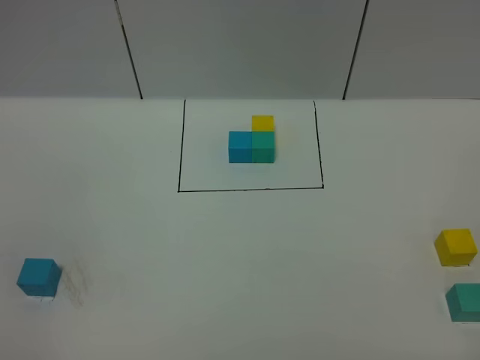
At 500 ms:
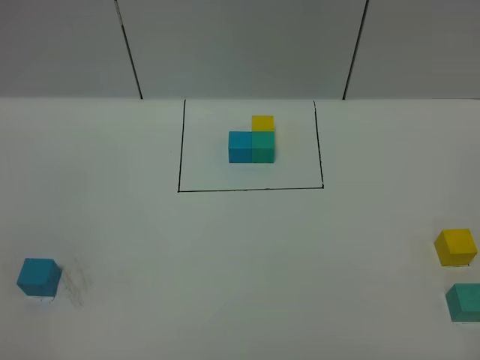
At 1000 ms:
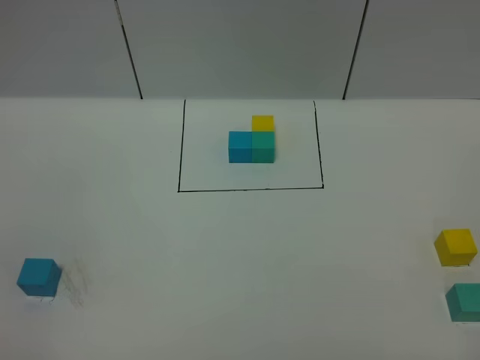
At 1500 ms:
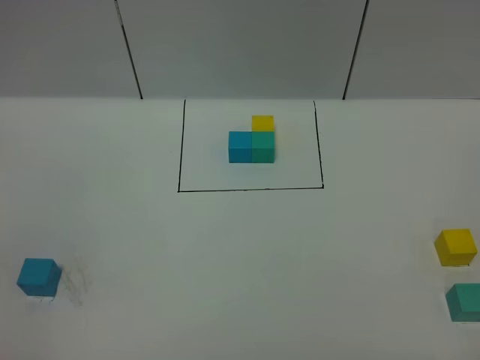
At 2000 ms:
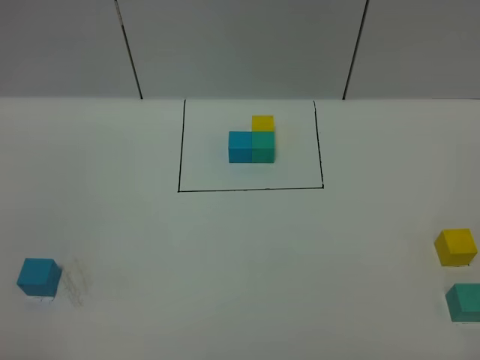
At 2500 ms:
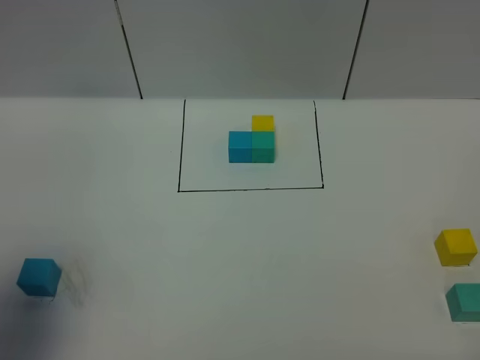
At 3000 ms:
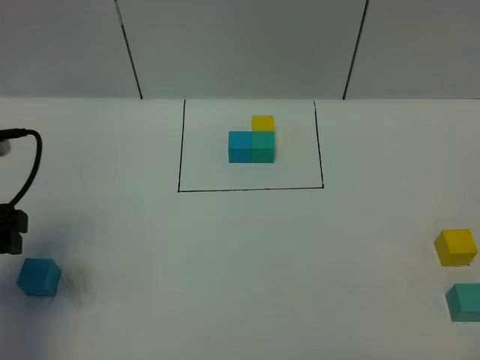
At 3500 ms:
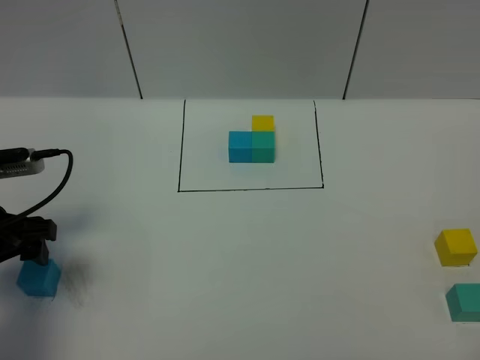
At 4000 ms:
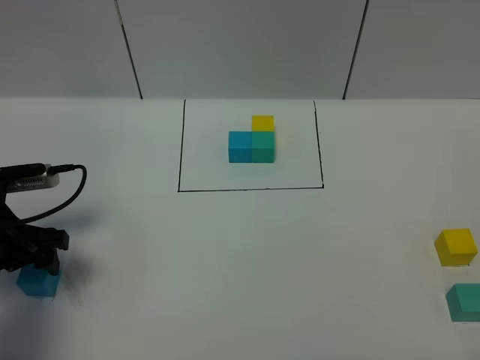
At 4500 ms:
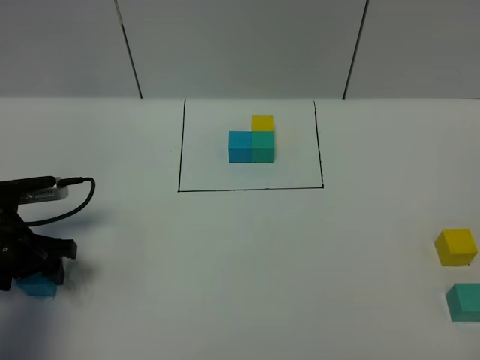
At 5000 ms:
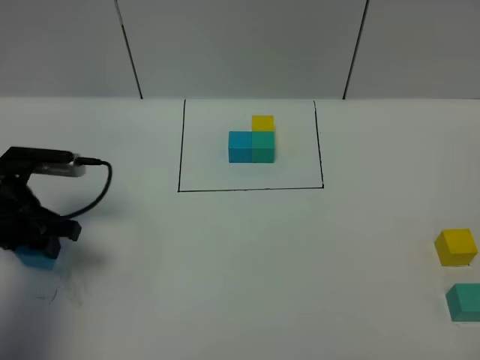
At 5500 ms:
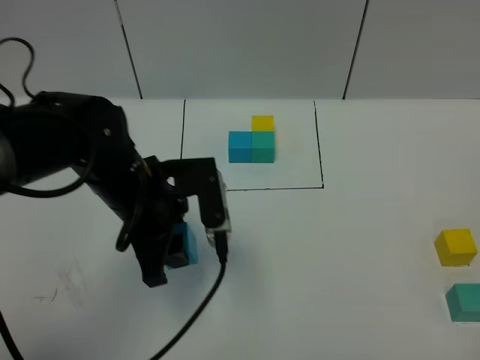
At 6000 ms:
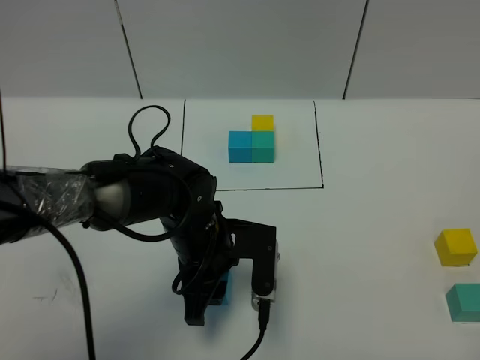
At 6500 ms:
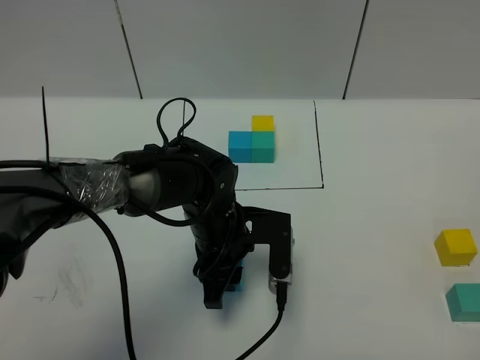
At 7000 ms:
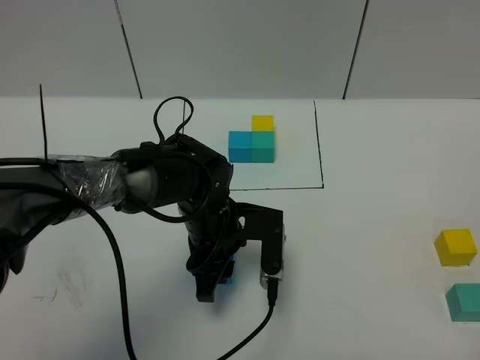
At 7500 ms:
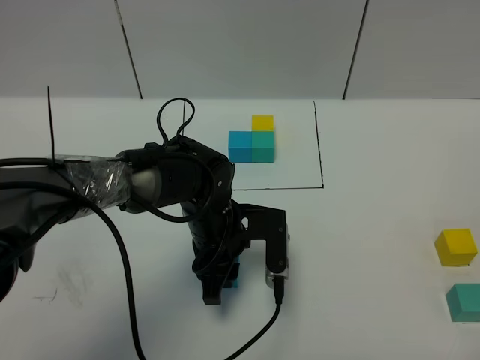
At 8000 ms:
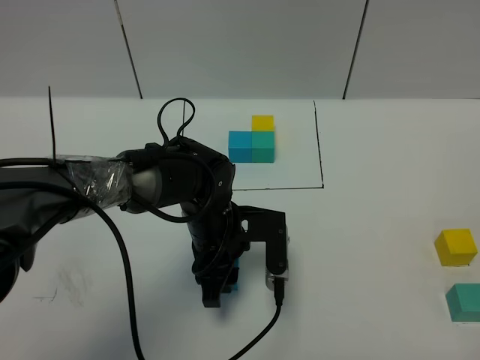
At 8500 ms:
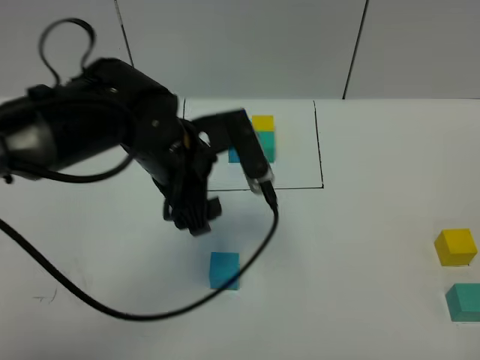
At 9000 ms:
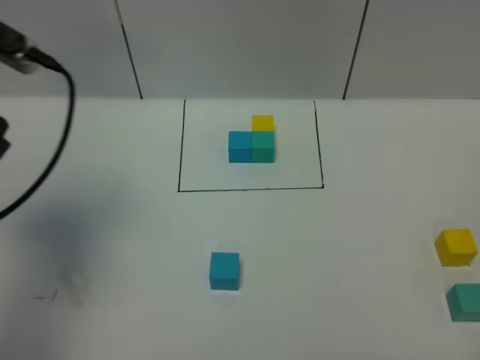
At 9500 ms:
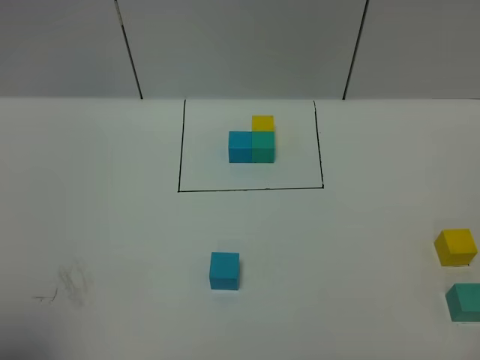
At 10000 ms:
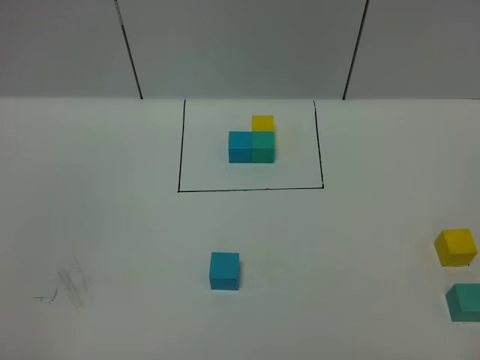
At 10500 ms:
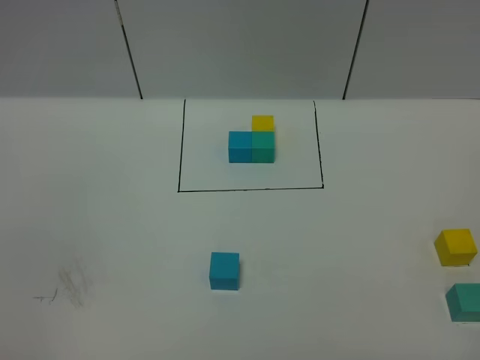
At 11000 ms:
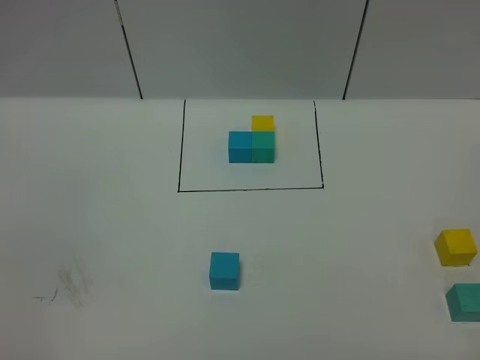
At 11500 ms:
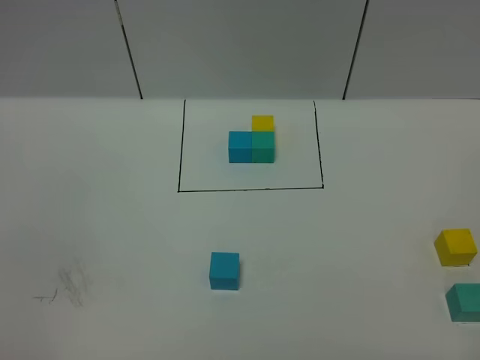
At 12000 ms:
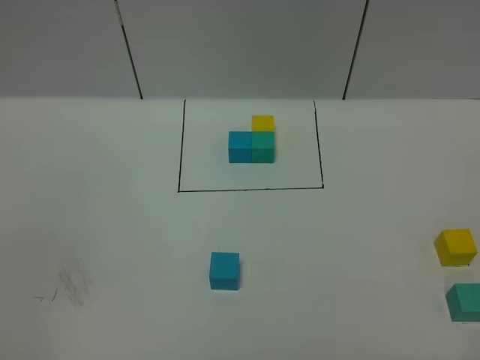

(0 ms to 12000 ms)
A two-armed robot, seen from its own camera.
Task of the whole recording: According to the building block template in front, assemble the scattered blocks together.
Step, 3000 ms - 8000 ms: Put the blue cube in the center of the table.
2000 ms - 4000 ms: The left gripper is displaced forward and downward by about 30 cm.
4000 ms - 6000 ms: The left gripper moves to the right, about 25 cm, and closes up.
6000 ms - 8000 ms: The grippers make only small movements.
8000 ms - 10000 ms: The left gripper goes approximately 50 cm backward, to the left and upward, and opens its fingers.

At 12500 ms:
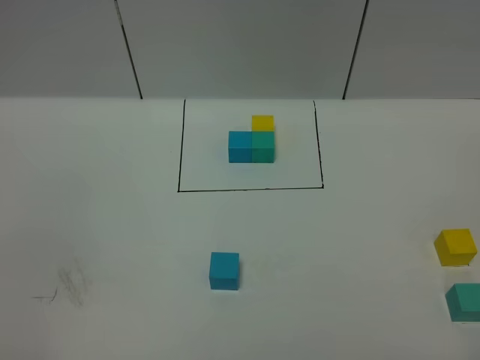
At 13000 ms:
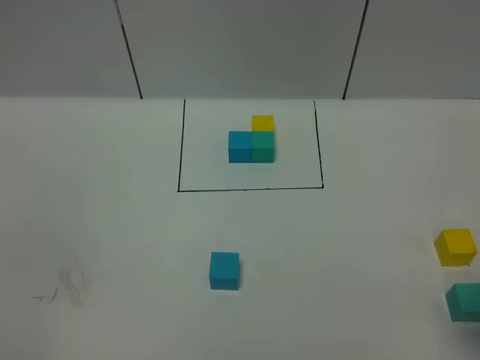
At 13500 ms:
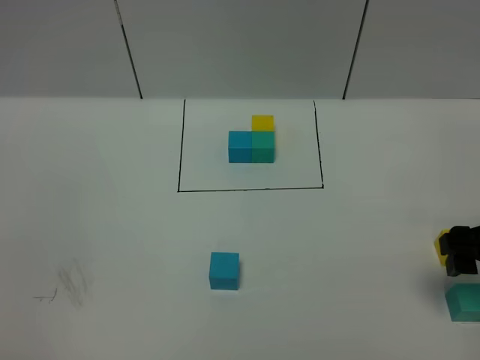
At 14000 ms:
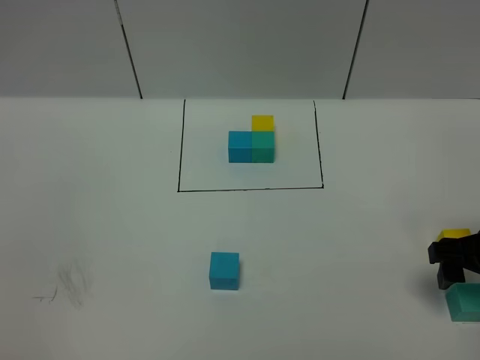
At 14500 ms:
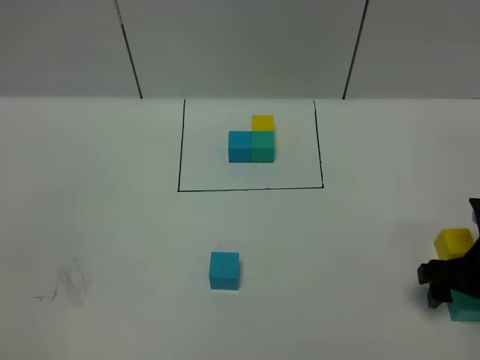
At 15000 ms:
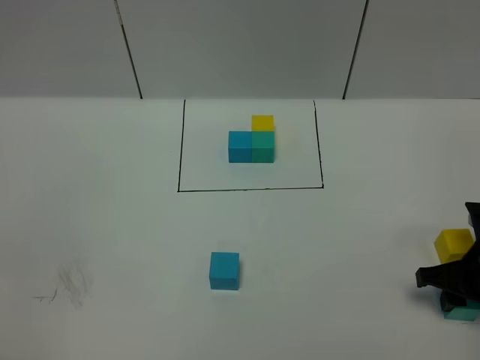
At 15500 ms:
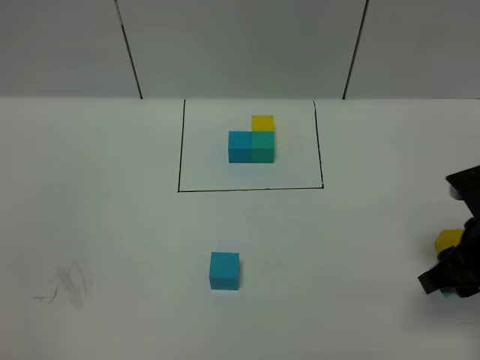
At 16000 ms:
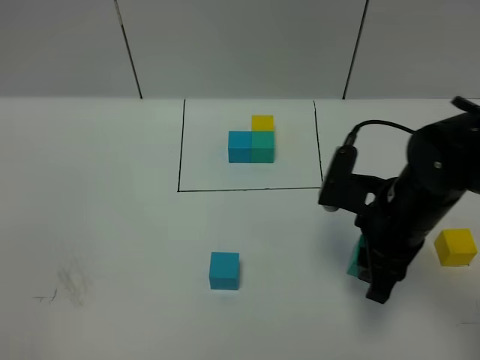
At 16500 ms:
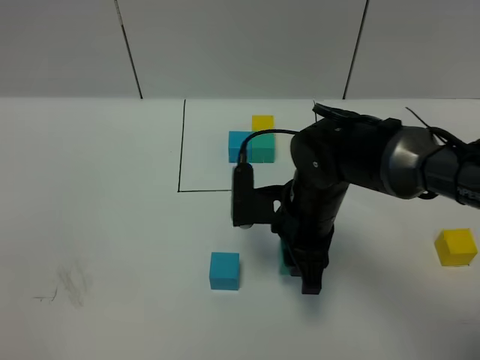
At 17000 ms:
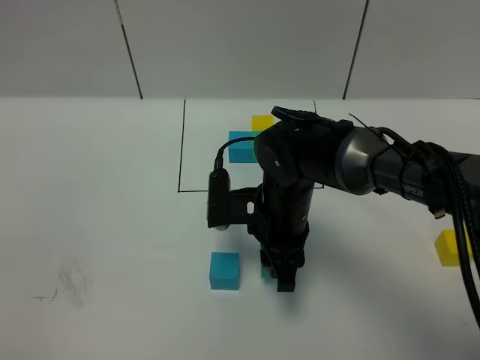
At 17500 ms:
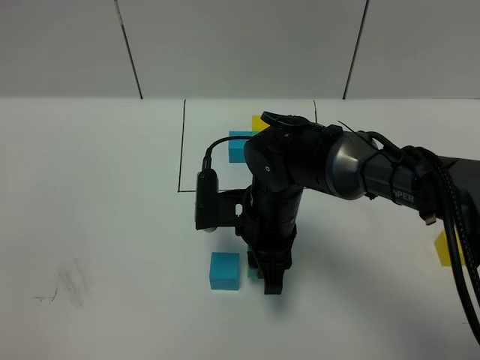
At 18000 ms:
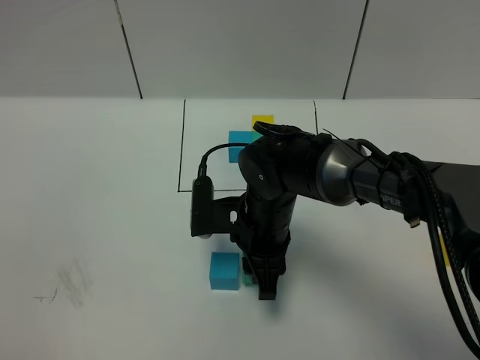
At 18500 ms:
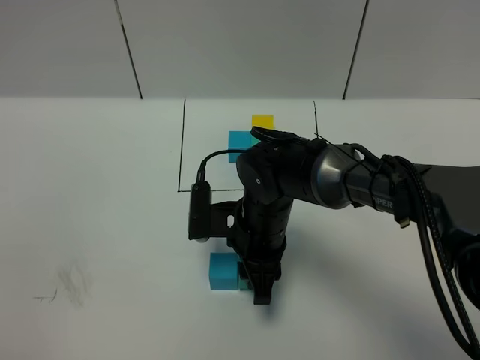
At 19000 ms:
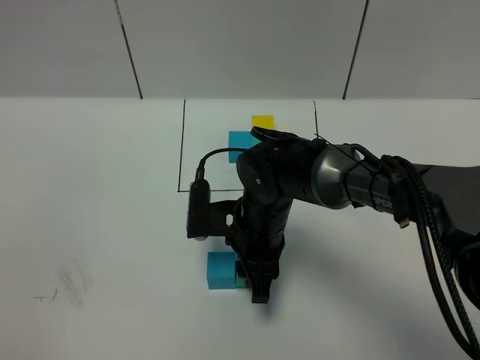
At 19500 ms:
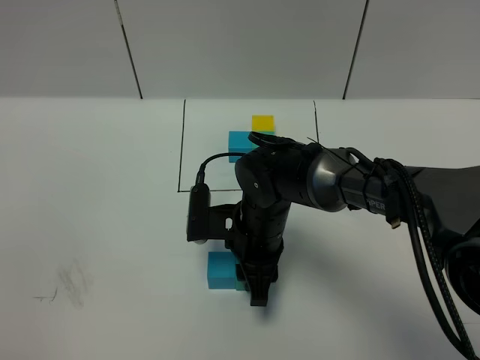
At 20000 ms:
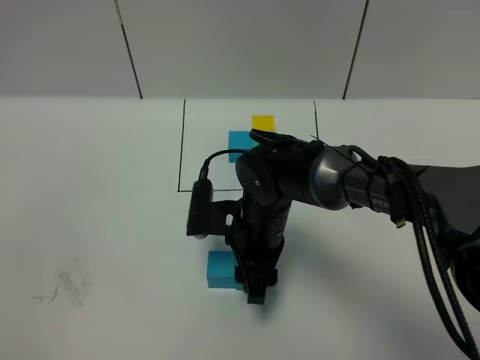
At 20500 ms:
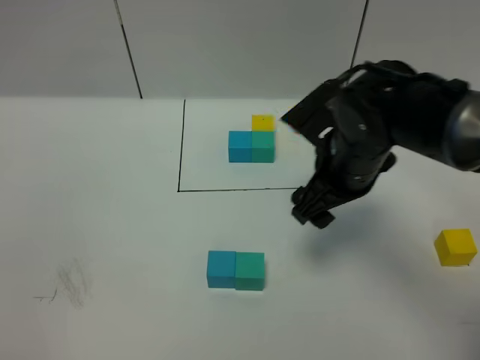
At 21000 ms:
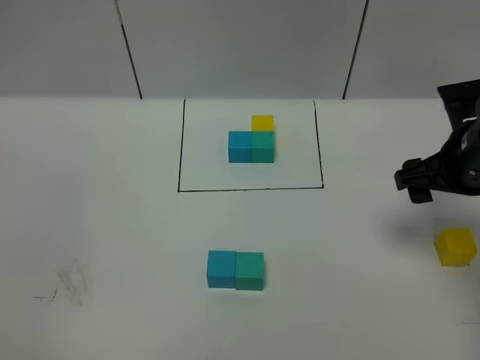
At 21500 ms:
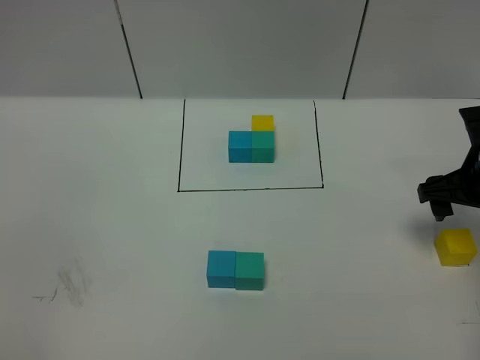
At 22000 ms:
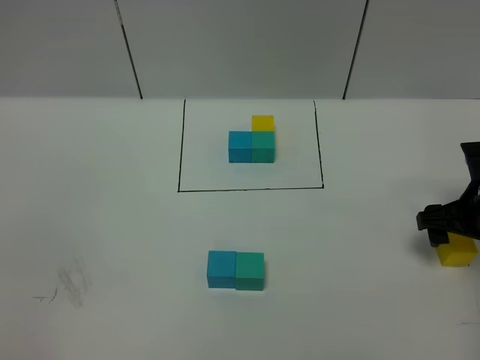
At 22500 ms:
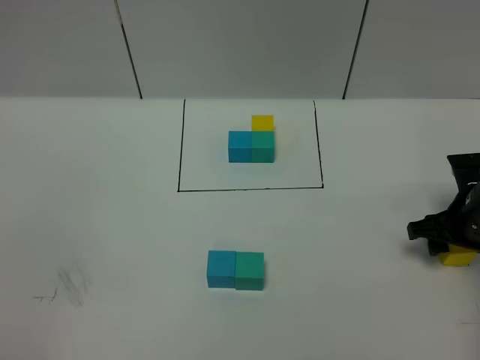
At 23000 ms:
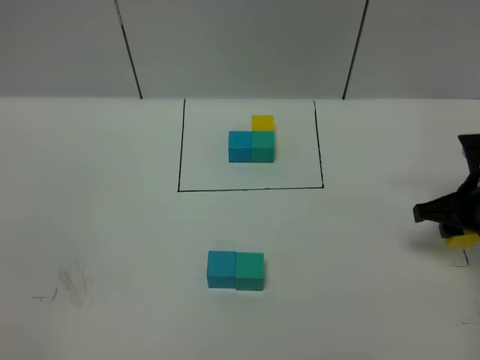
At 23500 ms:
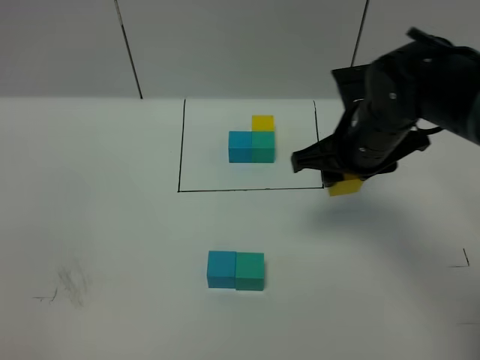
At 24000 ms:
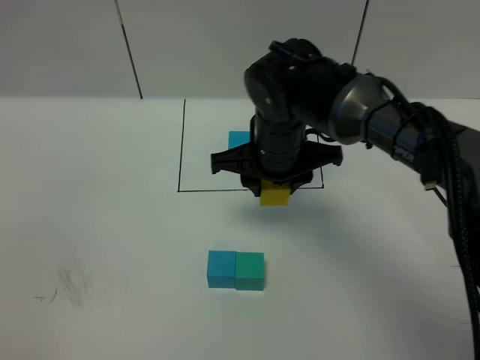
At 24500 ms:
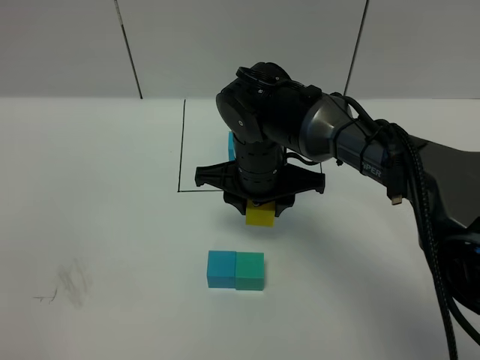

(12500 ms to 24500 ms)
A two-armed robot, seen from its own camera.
Task of the whole recording: According to the building block template in front, assemble the scattered blocks together.
Step, 12500 ms - 20000 ms: Put the green cube on the right of the blue cube.
12500 ms - 14500 ms: The right gripper heads forward and downward, covering some 25 cm.
14500 ms - 16500 ms: The right gripper shifts approximately 20 cm to the left, and closes up.
16500 ms - 18500 ms: The right gripper heads to the left, covering some 5 cm.
18500 ms - 20500 ms: The right gripper goes approximately 15 cm to the right and upward, and opens.
20500 ms - 22500 ms: The right gripper travels to the right and downward by about 20 cm.
22500 ms - 24500 ms: The right gripper heads to the left, covering approximately 30 cm.

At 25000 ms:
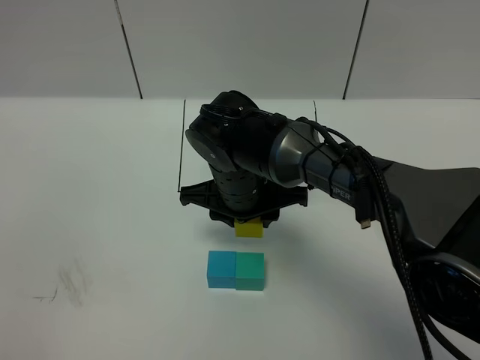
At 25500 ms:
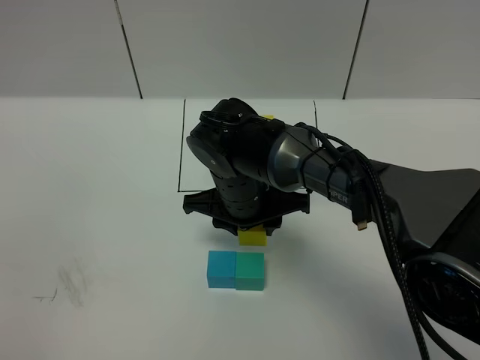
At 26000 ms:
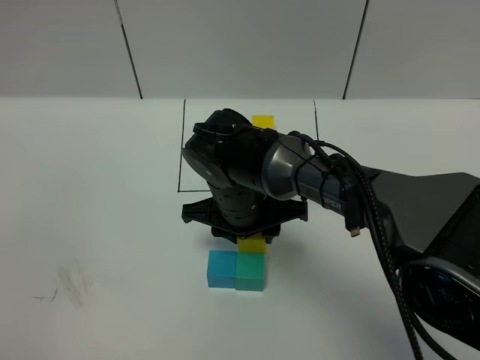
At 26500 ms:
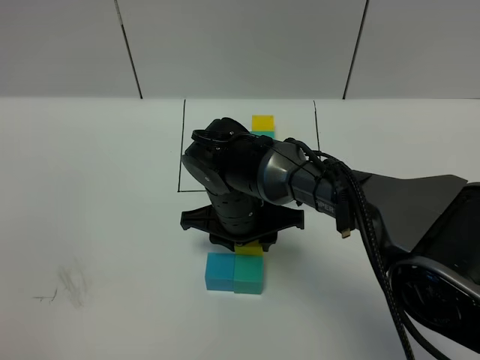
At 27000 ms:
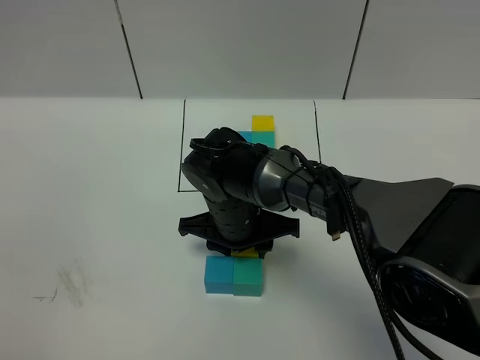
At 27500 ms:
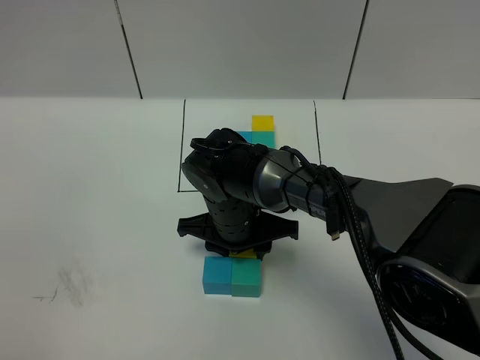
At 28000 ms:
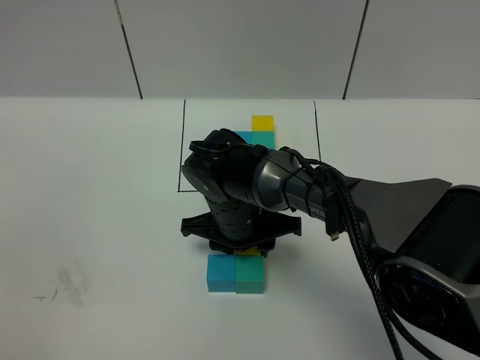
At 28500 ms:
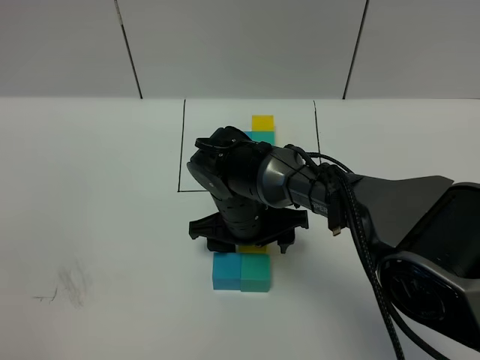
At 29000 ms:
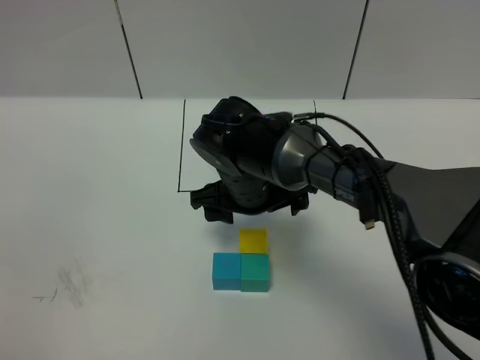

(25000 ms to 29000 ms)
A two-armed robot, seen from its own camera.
Task of the whole recording: According to the building block template in front, assemble the scattered blocks together.
Step, 25000 ms - 28500 ms: Put the yellow cube on the behind of the green cube.
25000 ms - 27000 ms: The right gripper shifts by some 5 cm.
27000 ms - 29000 ms: The right gripper goes roughly 5 cm upward, and opens up.
